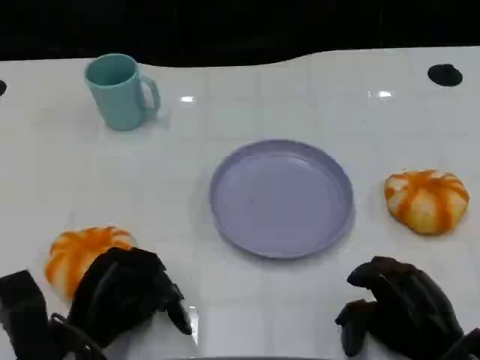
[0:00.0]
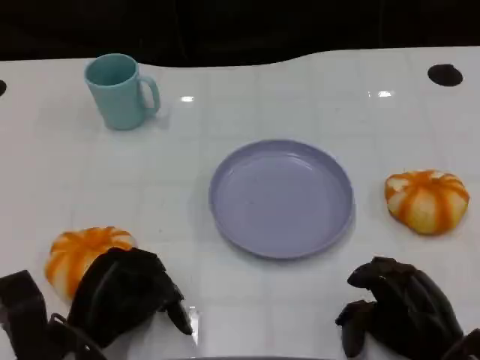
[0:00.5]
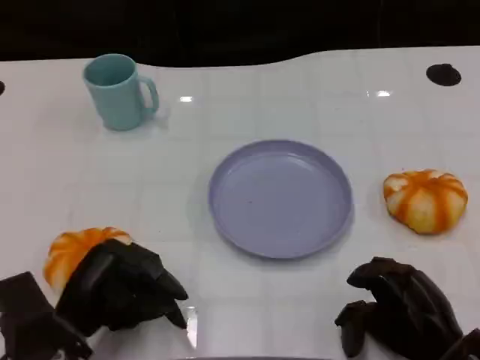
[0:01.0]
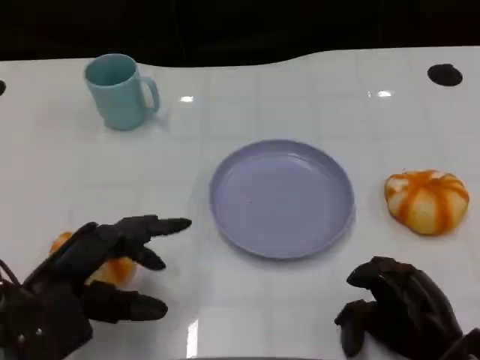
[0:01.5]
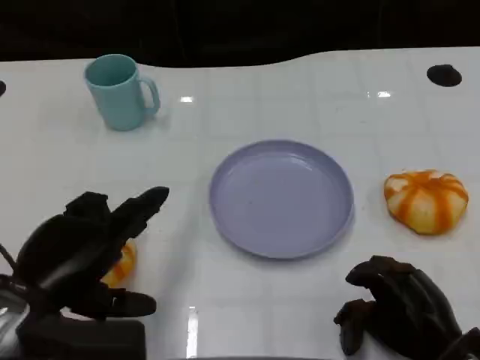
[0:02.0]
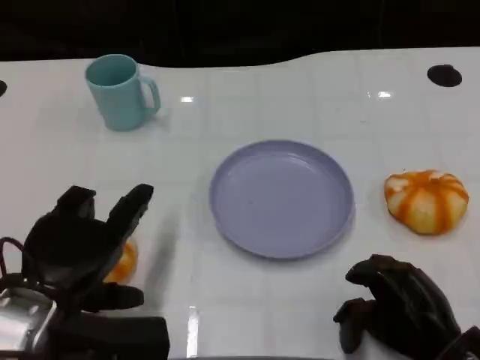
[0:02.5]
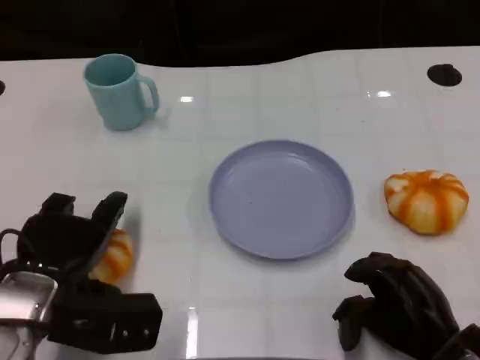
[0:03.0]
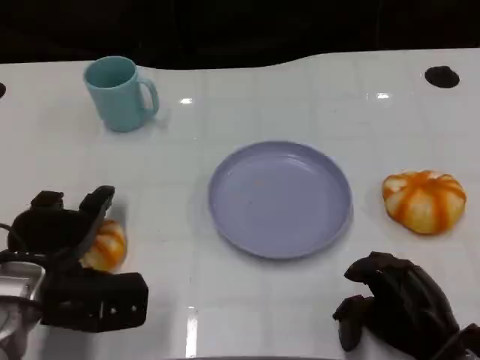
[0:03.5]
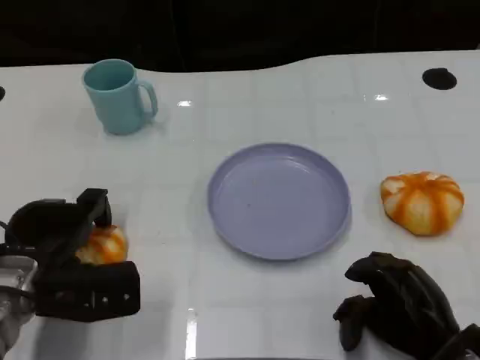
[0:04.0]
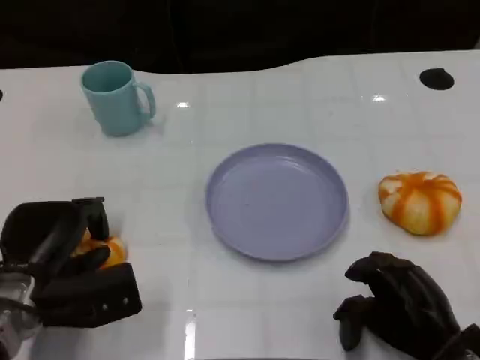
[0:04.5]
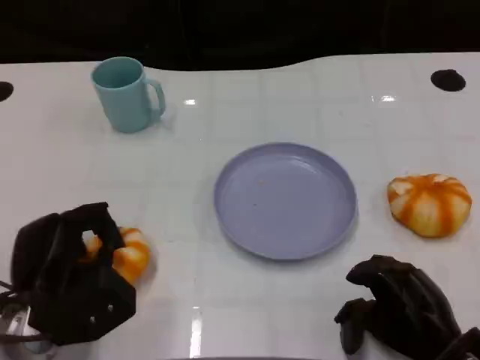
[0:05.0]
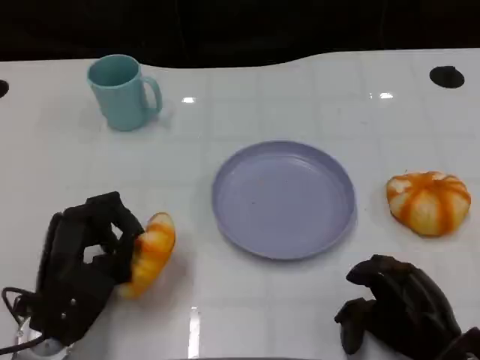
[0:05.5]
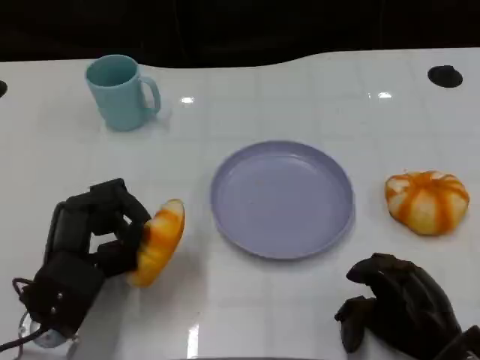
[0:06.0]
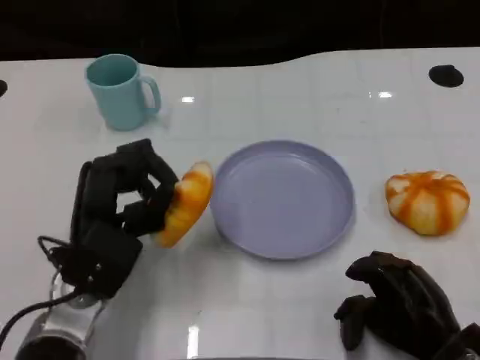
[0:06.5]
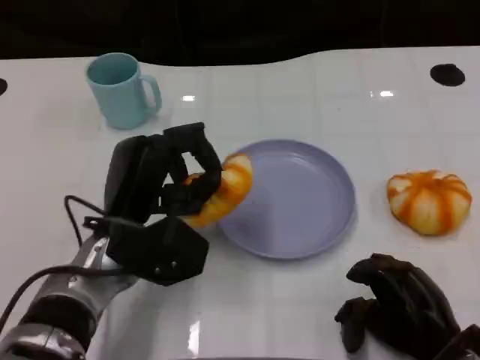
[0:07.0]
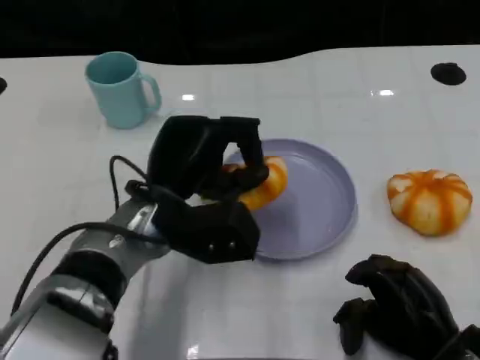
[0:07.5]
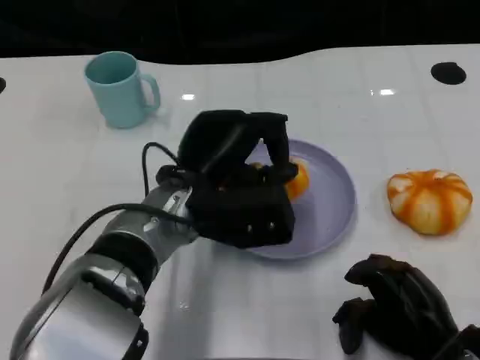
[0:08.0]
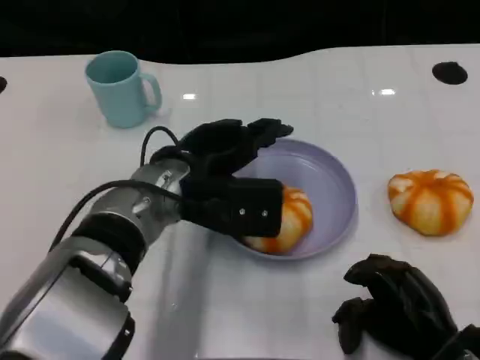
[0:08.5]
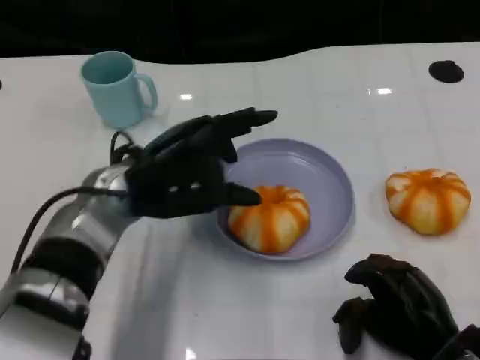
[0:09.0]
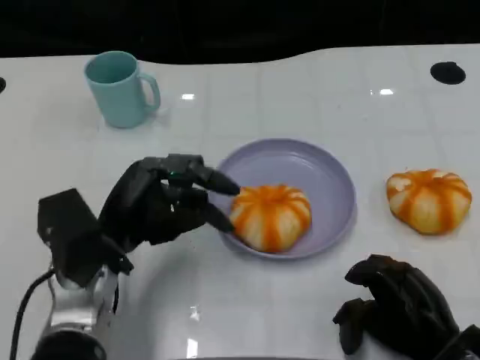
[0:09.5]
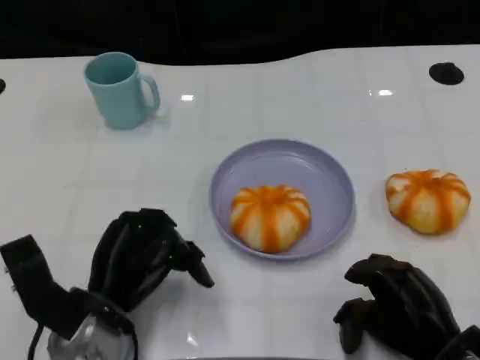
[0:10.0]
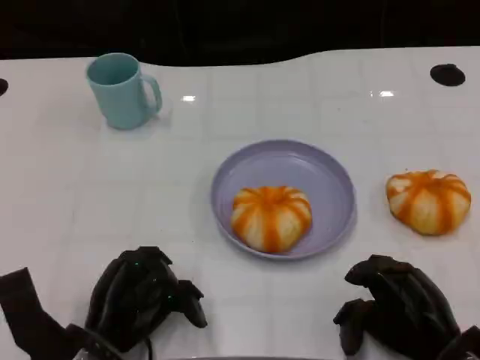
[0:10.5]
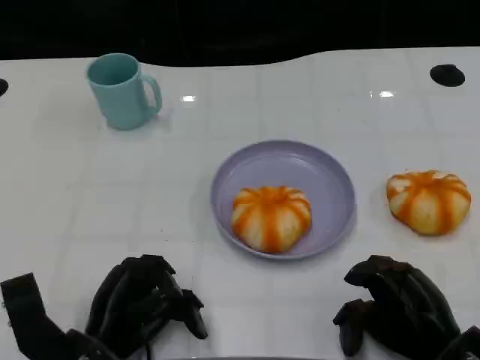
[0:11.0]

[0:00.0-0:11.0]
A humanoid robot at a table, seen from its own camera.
Task of the whole recording: Grasp the bread from the table and place it into the plate.
0:00.0 to 0:02.0: The left hand goes about 10 cm upward.
0:02.0 to 0:03.5: The left hand heads forward, covering approximately 5 cm.
0:05.5 to 0:07.5: The left hand shifts roughly 15 cm to the right, upward and forward.
0:09.0 to 0:11.0: The left hand shifts approximately 15 cm downward and backward.

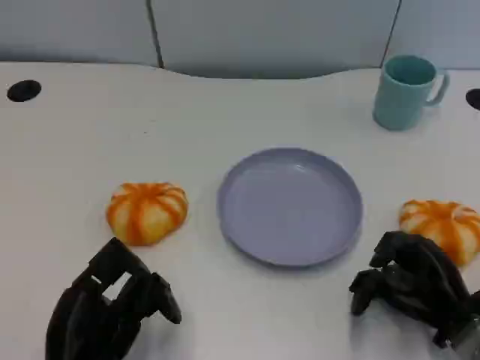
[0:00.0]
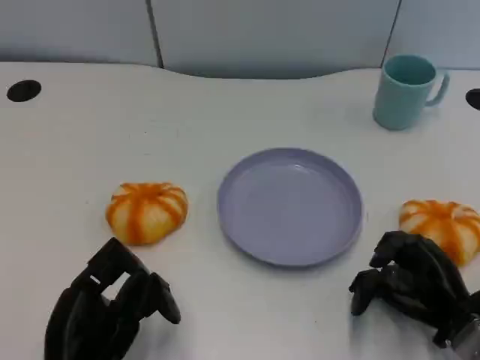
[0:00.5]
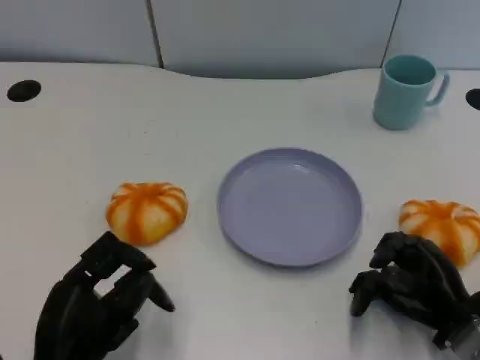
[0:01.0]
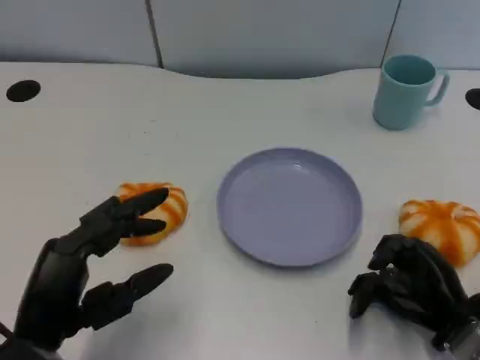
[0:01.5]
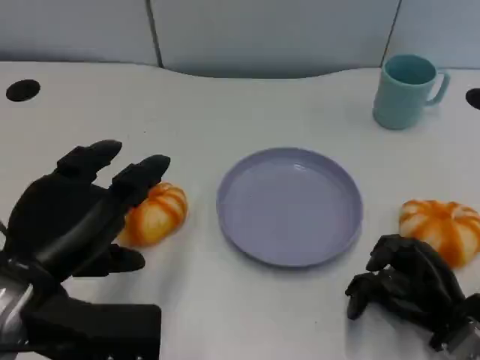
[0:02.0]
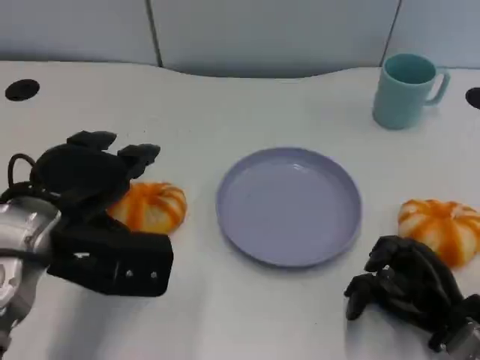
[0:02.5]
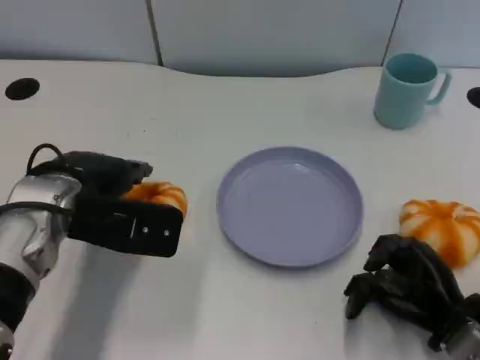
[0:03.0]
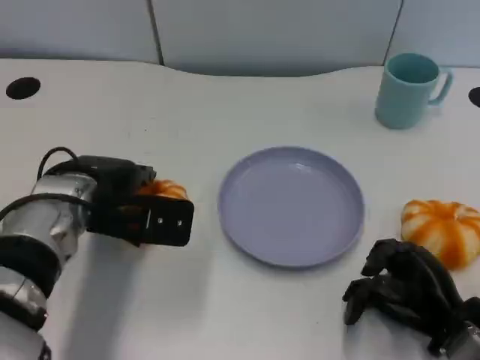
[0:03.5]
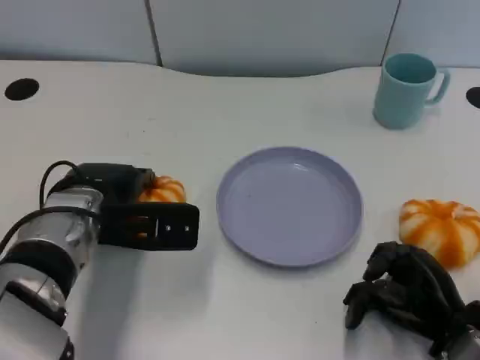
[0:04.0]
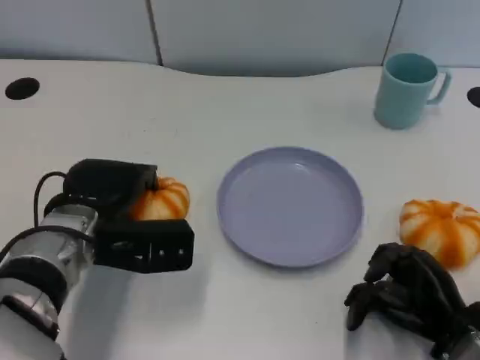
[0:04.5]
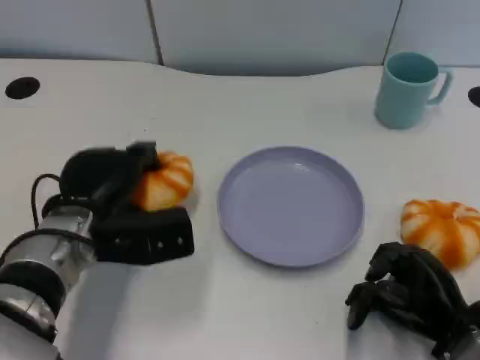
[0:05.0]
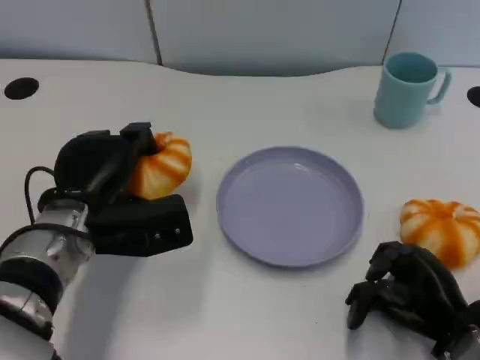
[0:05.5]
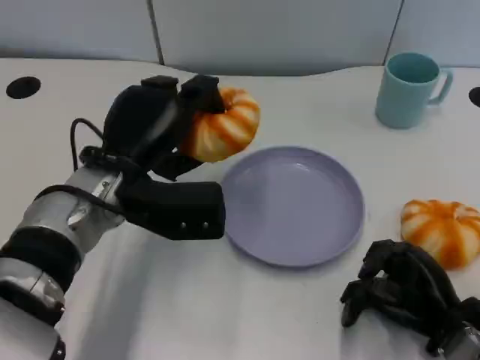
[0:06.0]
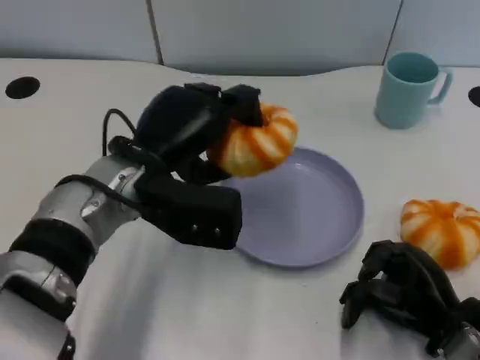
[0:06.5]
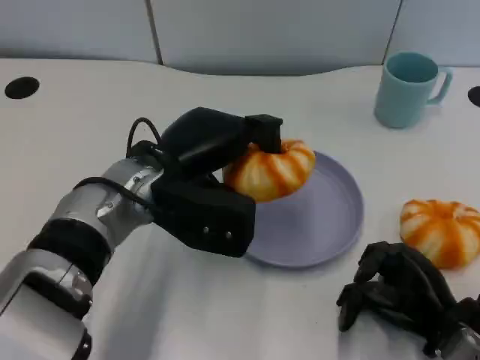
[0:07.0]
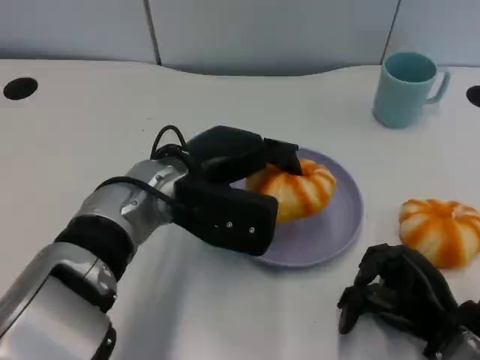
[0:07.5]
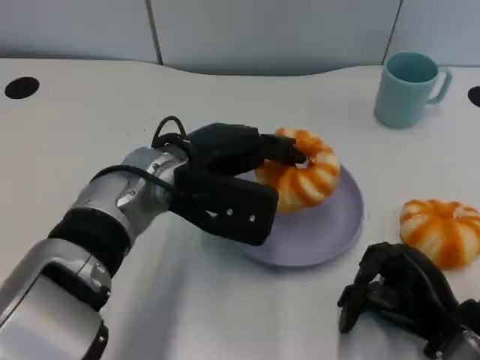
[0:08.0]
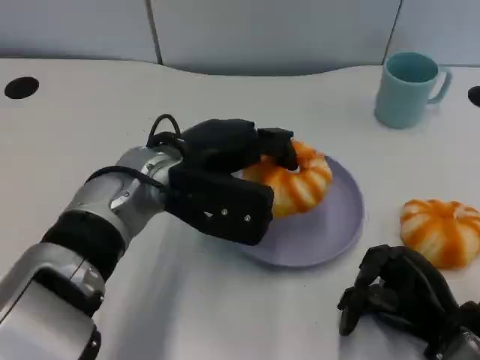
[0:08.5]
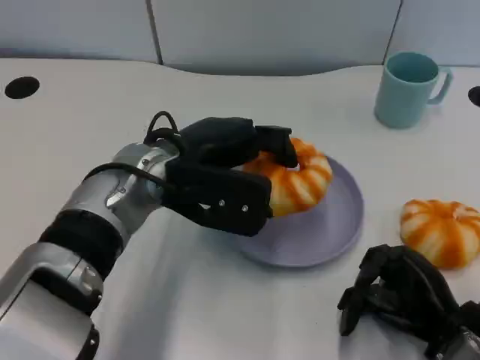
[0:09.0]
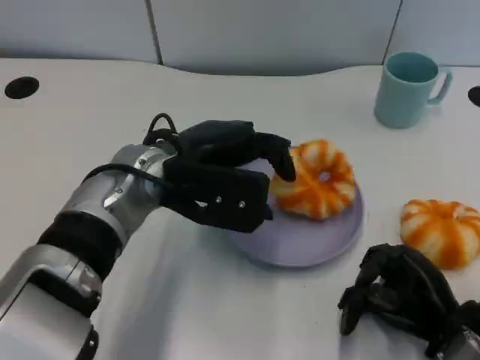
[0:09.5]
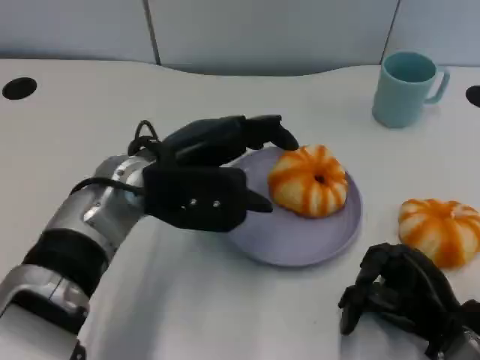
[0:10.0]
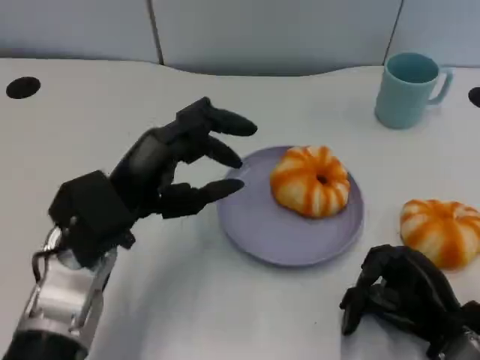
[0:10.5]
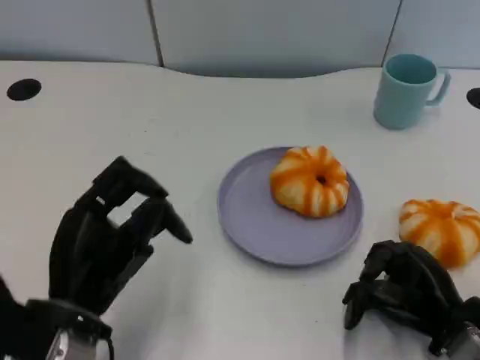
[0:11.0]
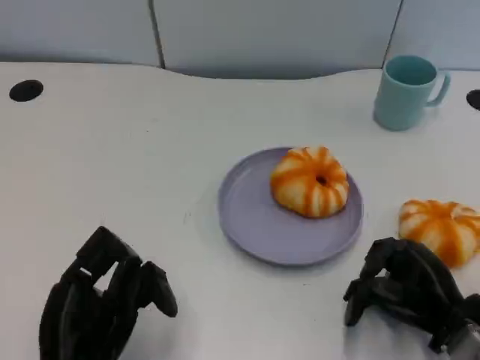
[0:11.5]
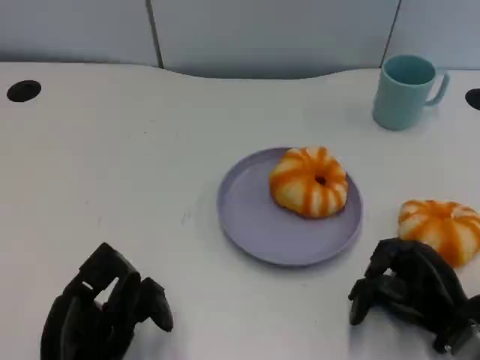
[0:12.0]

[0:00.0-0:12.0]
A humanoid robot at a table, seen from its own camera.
Task of the whole recording: Grasp the bread from the table and place it into the plate.
0:00.0 to 0:02.0: The left hand travels upward and forward by about 10 cm.
0:02.0 to 0:04.0: The left hand travels forward and downward by roughly 15 cm.
0:04.0 to 0:06.0: The left hand changes place by some 5 cm.
0:06.0 to 0:08.0: The left hand shifts by about 5 cm.
0:08.0 to 0:10.0: The hands move only a little.
0:10.0 to 0:12.0: The left hand moves backward, downward and to the left, some 20 cm.

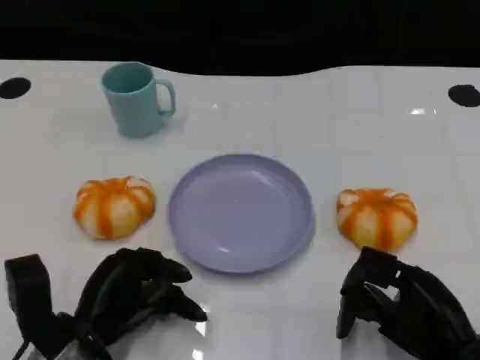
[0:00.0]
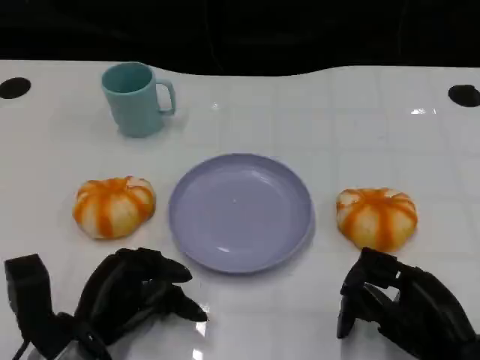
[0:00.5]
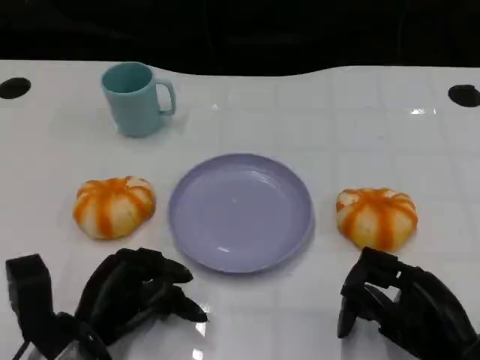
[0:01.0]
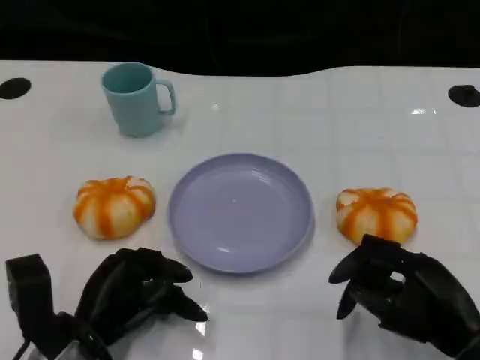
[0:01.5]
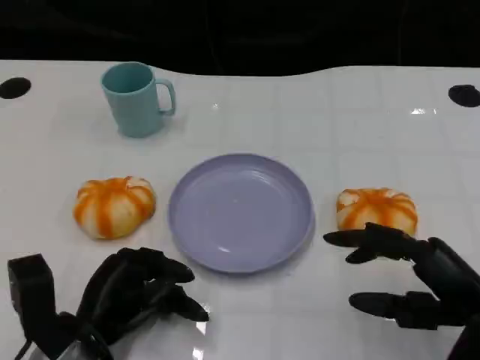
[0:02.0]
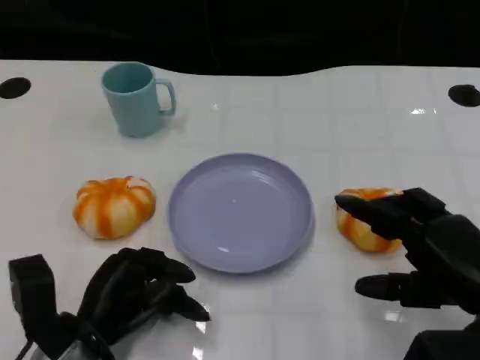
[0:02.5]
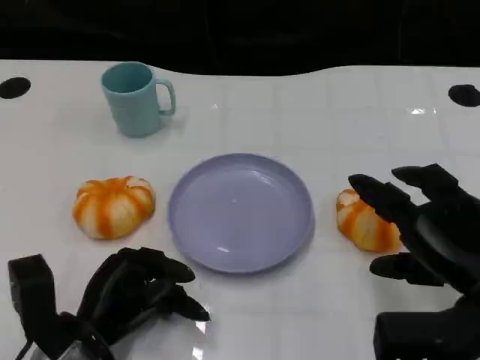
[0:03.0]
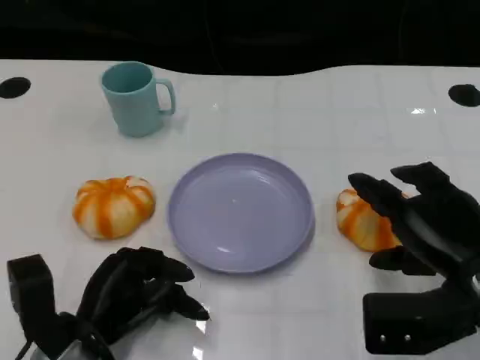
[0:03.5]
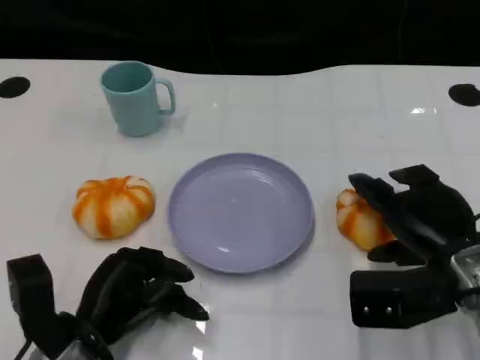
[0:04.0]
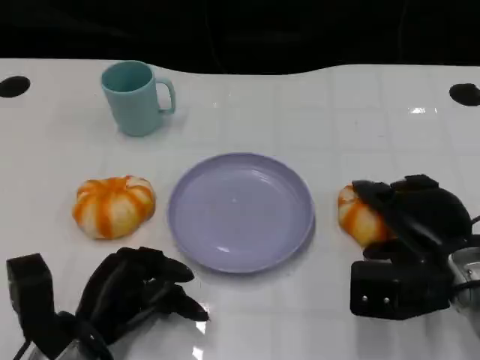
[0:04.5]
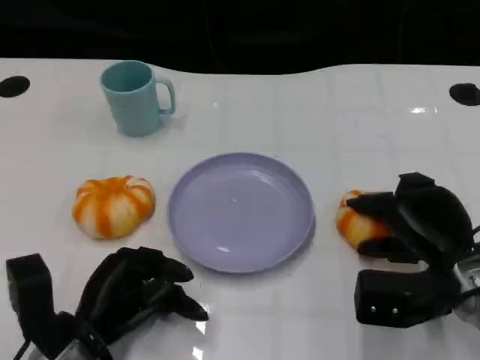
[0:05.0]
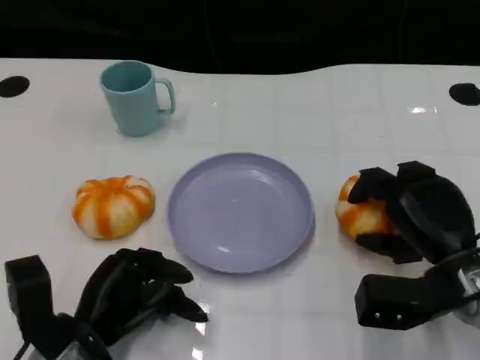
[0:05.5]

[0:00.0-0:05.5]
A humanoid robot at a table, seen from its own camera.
Task of the whole recording: Grasp the bread from the table and place it into the plate.
0:00.0 to 0:02.0: The right hand ends up some 5 cm from where it was.
0:03.5 to 0:05.5: The right hand shifts by approximately 5 cm.
